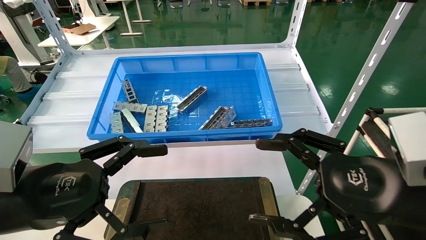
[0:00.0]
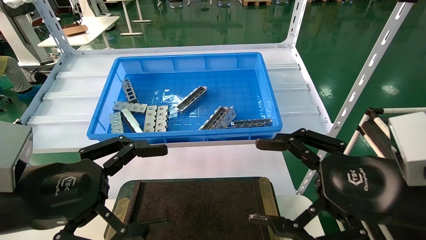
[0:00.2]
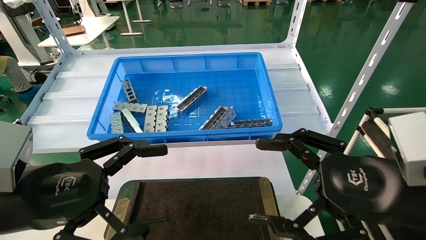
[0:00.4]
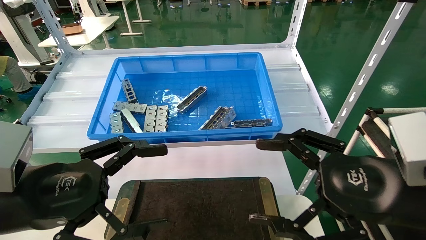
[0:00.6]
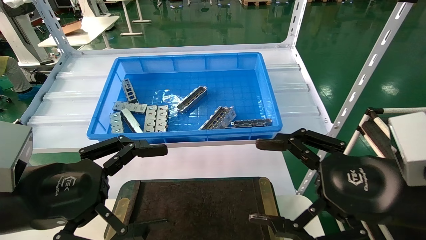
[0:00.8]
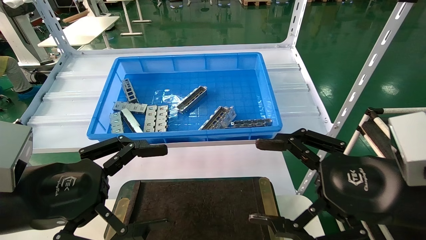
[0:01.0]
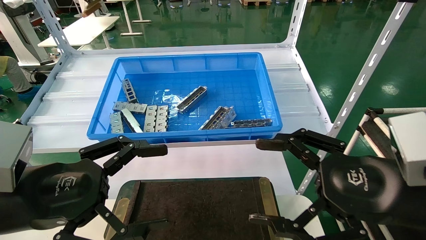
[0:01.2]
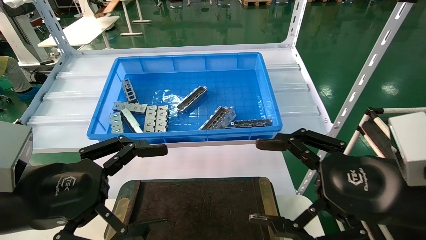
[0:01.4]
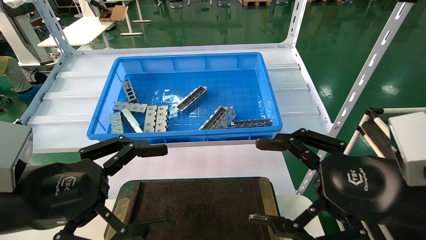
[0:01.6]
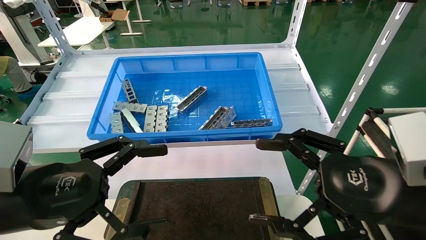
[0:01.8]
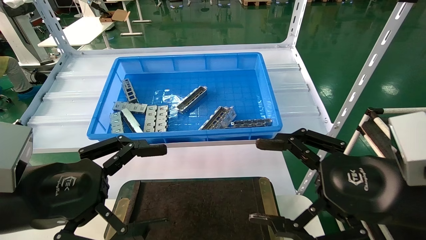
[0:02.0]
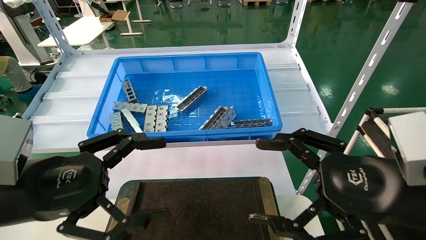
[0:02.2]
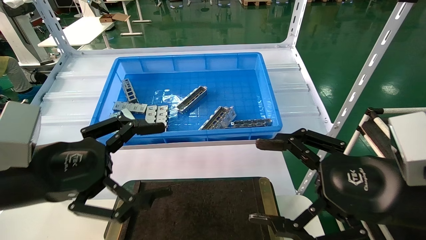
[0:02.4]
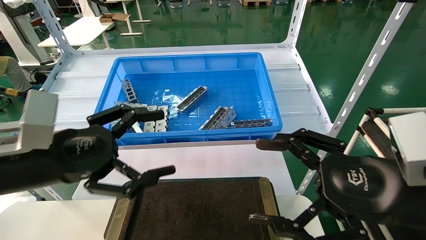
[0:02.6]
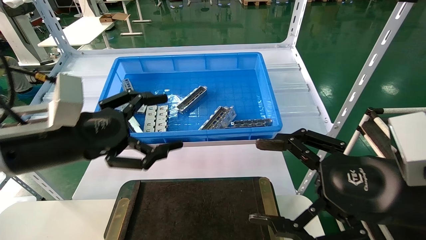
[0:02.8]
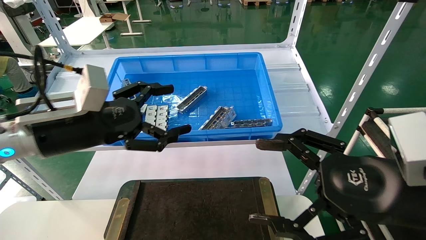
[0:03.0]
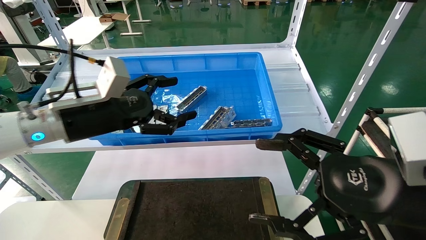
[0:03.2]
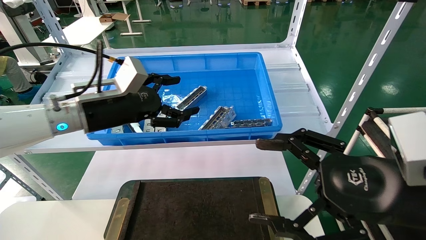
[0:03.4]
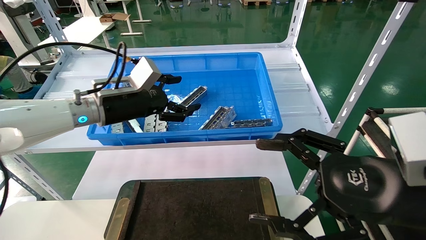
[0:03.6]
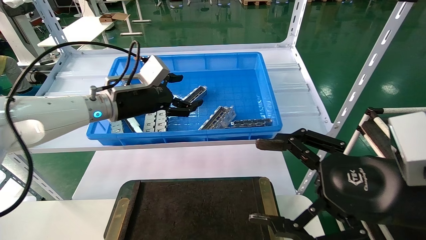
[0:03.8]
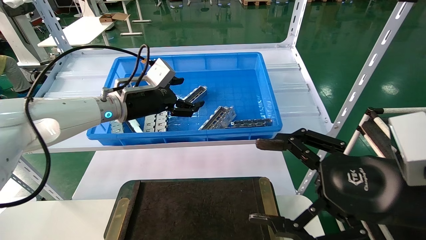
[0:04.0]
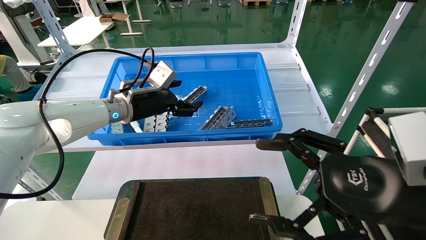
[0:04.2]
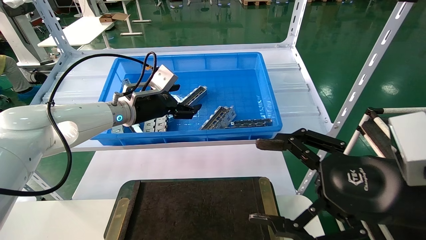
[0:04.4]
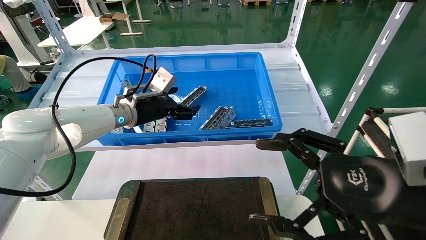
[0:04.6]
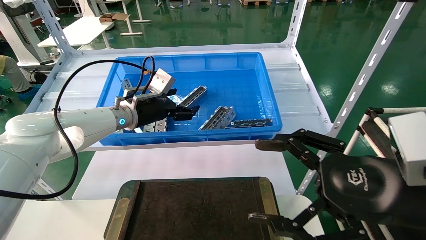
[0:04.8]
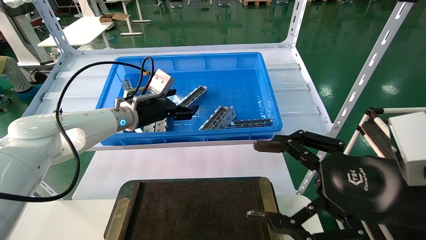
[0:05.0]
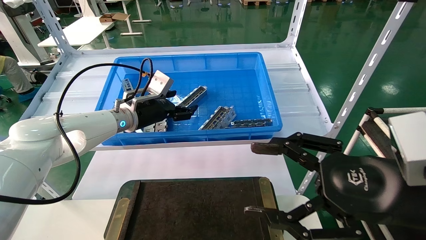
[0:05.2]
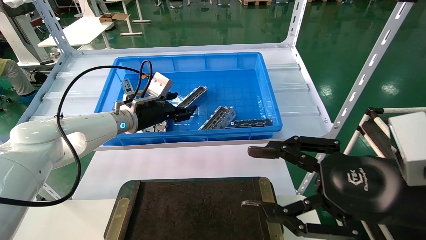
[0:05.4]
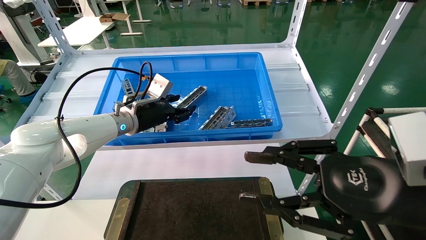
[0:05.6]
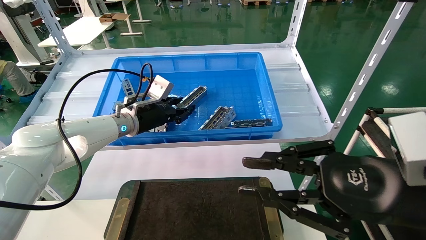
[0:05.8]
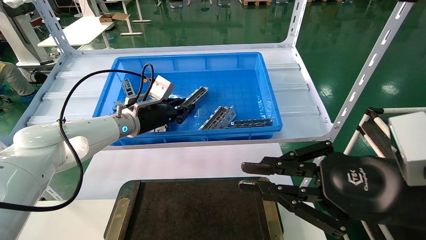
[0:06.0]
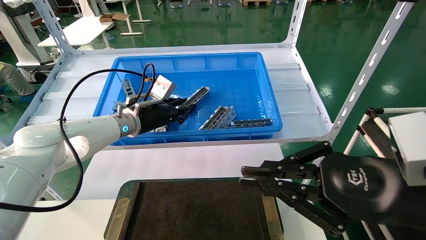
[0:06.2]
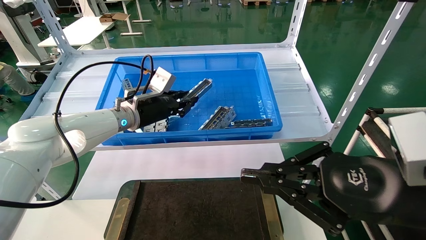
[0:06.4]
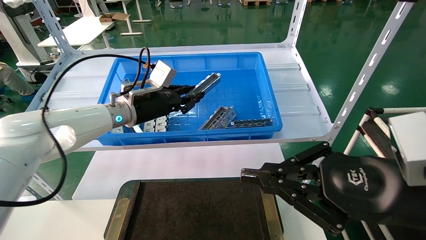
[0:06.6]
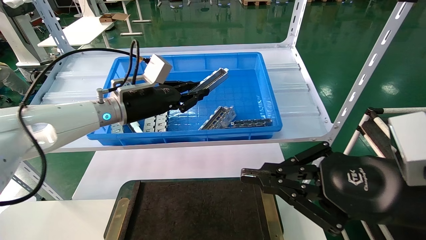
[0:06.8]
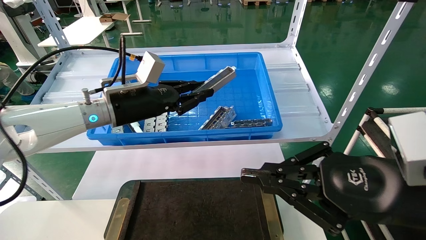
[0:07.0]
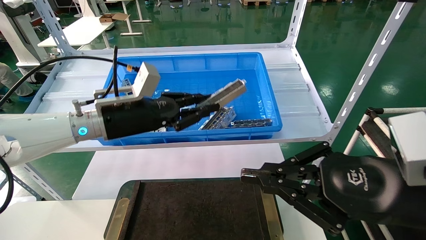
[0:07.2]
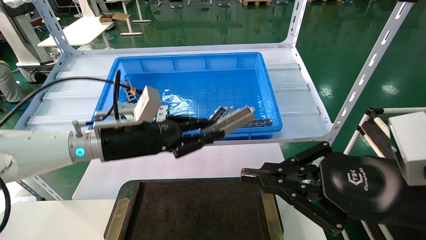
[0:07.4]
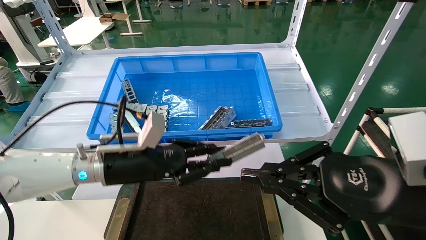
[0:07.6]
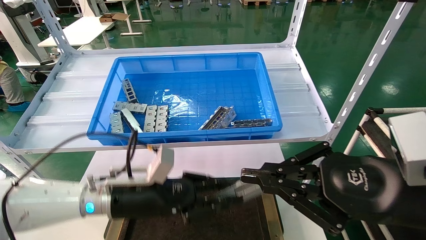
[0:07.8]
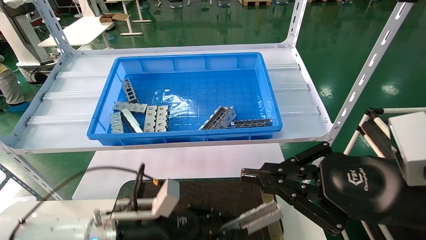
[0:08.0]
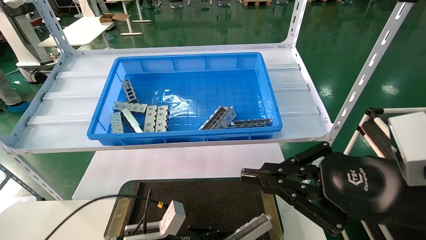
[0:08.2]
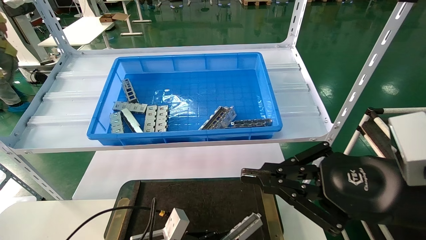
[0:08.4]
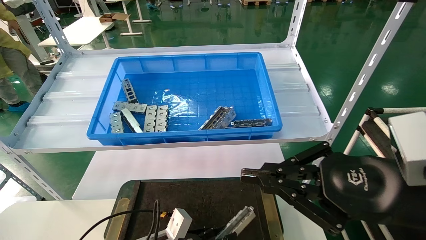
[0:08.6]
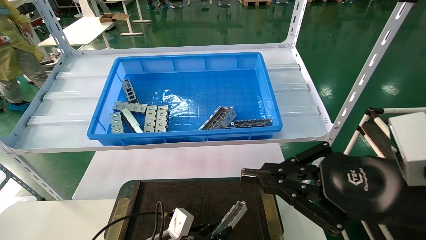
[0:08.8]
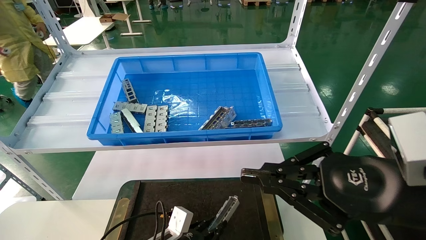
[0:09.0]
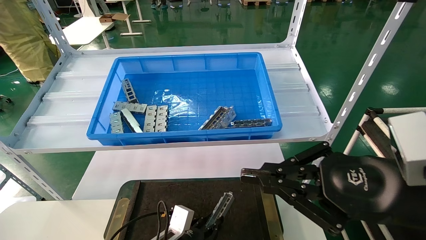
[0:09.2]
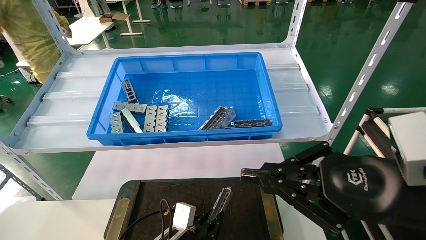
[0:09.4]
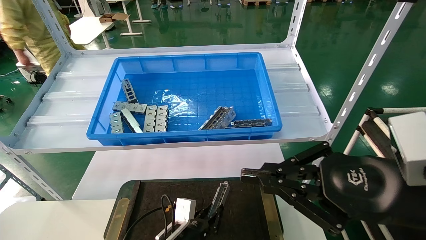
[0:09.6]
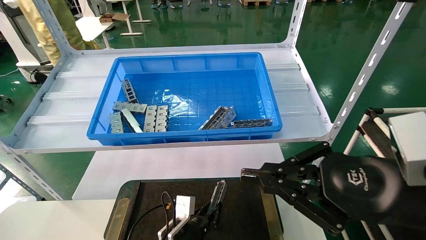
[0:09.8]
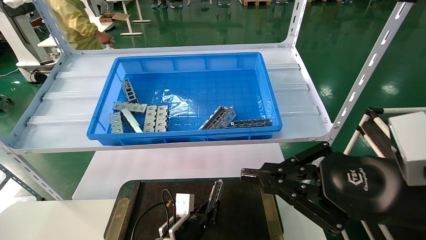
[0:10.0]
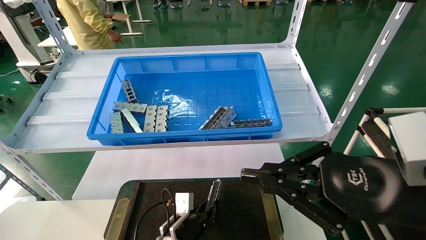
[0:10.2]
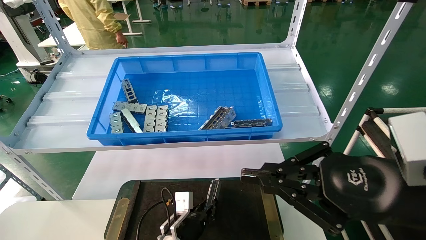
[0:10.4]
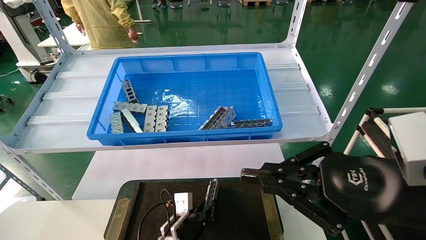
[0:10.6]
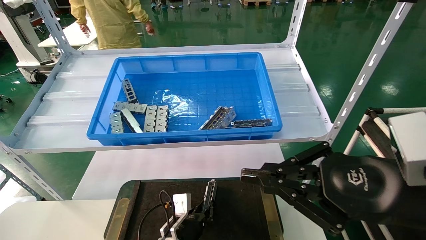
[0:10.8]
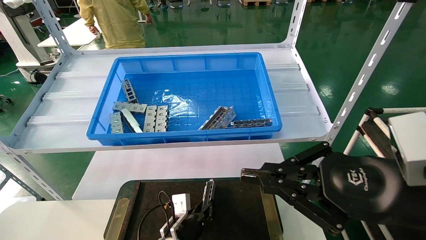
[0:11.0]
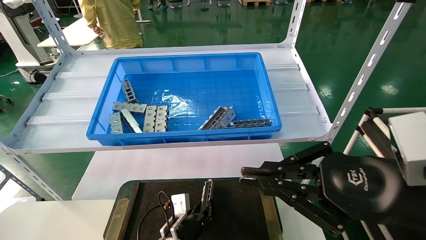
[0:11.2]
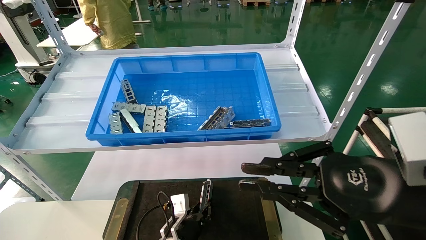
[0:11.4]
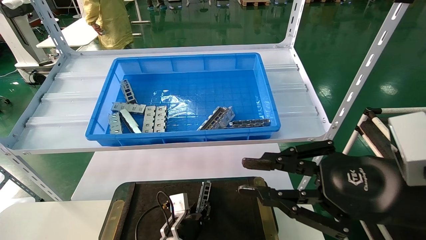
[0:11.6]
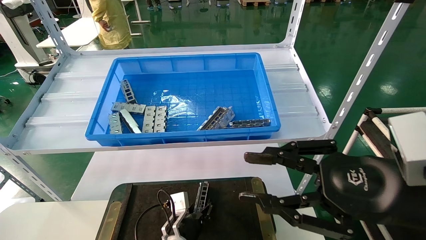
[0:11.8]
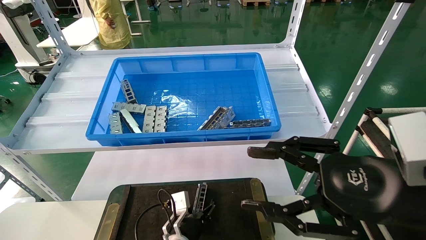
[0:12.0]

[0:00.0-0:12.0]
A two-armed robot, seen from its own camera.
Task of the whole recording: Grasp the part with one hand and place it on the black container.
Step, 0:03.0 to 0:06.6: Pick up the front USB bracket from the feeding area.
Step, 0:06.8 to 0:11.8: Place the front USB bracket into the box.
0:00.0 to 0:01.6: Both grippers stay about where they are.
0:01.6 to 0:03.0: The left gripper moves forward, approximately 10 cm.
0:03.0 to 0:04.4: The left gripper travels forward by about 15 cm.
0:04.4 to 0:06.0: The right gripper closes up. The left gripper closes.
0:06.0 to 0:07.6: The left gripper goes about 15 cm backward and downward.
0:07.6 to 0:09.0: The left gripper heads downward, covering about 25 cm.
0:09.0 to 0:10.4: The left gripper travels forward by approximately 5 cm.
0:10.4 to 0:12.0: The right gripper opens up; the left gripper opens.

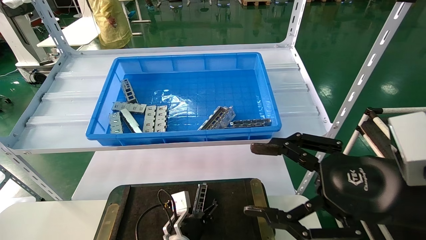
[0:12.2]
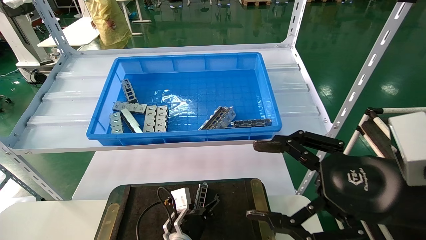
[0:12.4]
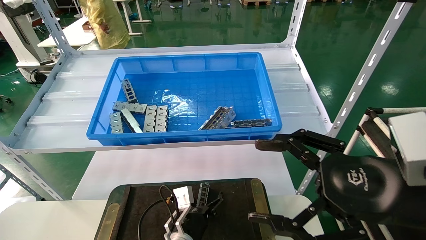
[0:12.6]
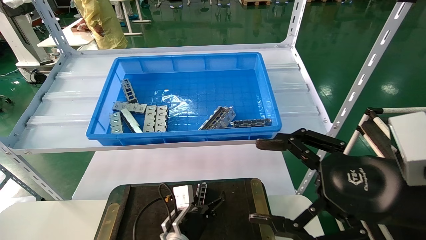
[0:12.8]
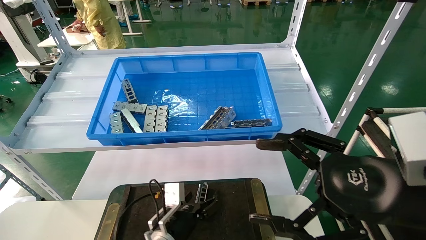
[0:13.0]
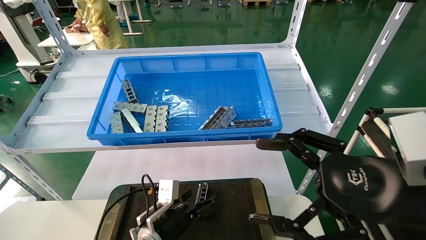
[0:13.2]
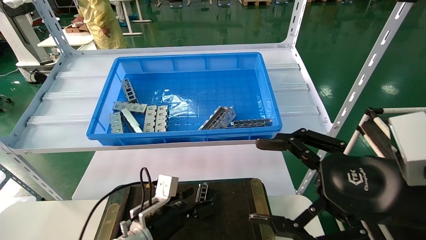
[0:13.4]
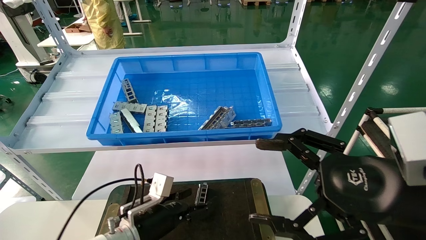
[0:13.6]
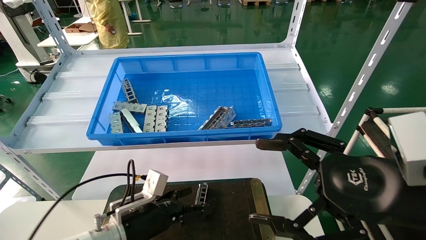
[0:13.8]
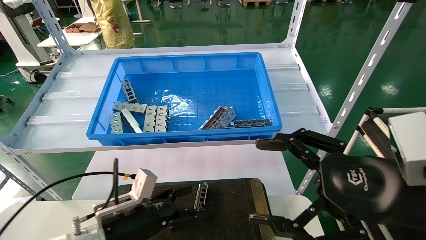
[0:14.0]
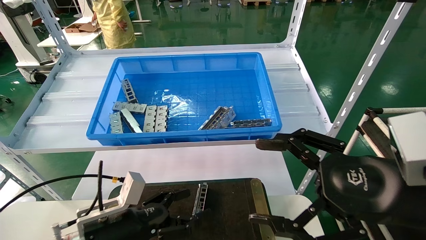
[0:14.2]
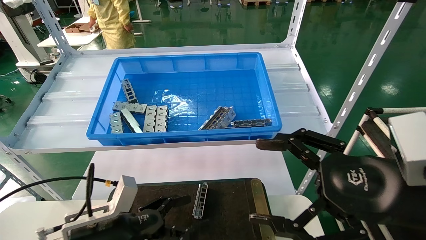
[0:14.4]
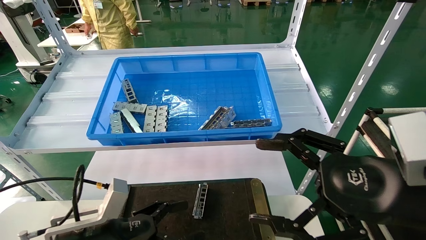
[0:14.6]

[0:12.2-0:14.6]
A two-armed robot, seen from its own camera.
Task of the whole recording: Grasp the part with one hand and place it on the black container.
0:12.2 to 0:13.4: The left gripper is displaced upward and to the left by about 10 cm.
0:13.4 to 0:14.6: The left gripper travels backward, to the left and upward by about 15 cm.
